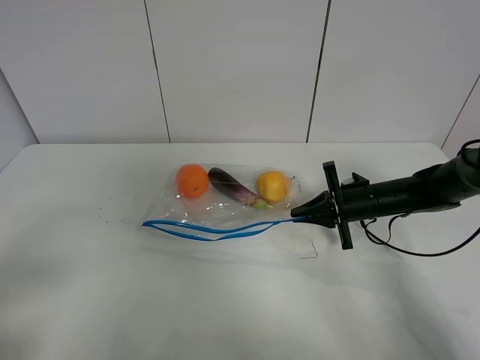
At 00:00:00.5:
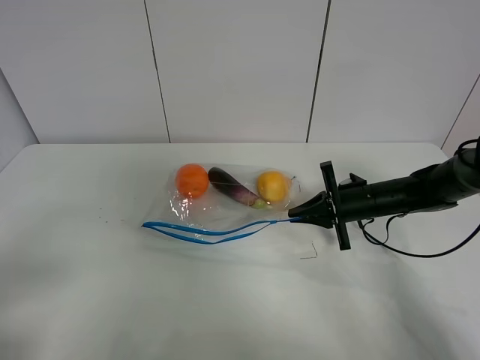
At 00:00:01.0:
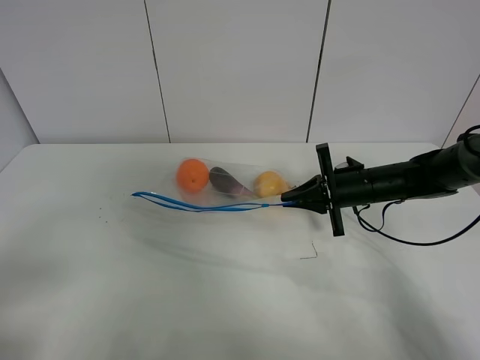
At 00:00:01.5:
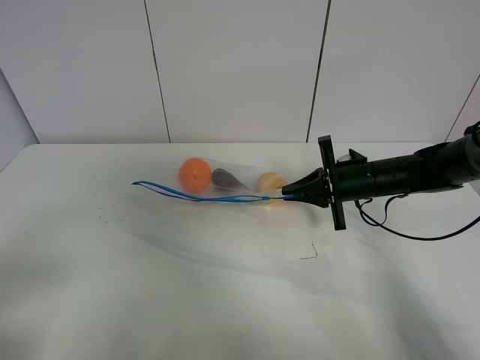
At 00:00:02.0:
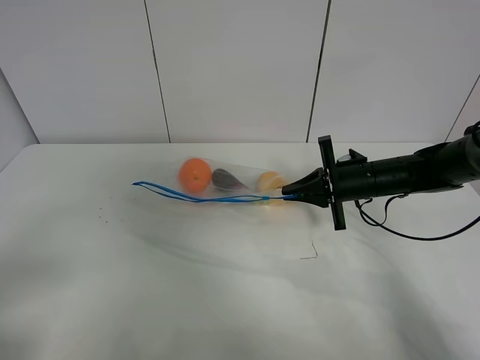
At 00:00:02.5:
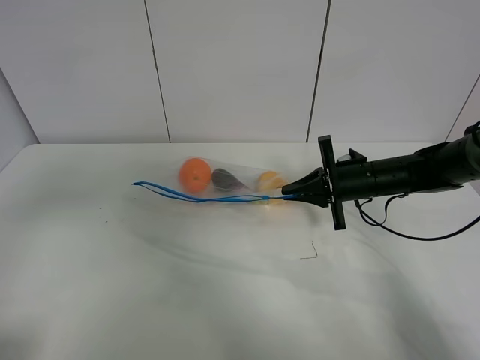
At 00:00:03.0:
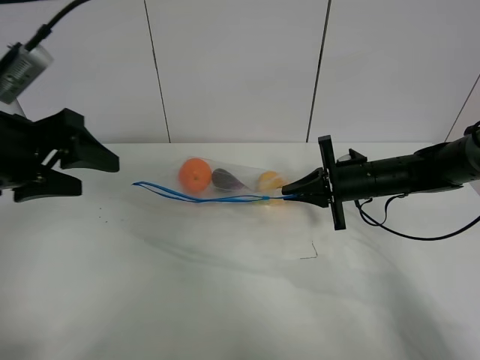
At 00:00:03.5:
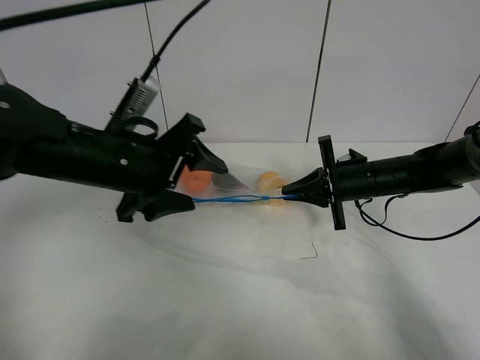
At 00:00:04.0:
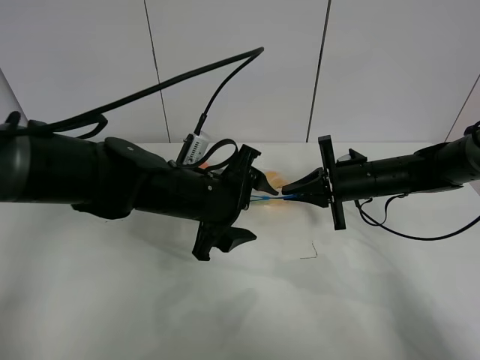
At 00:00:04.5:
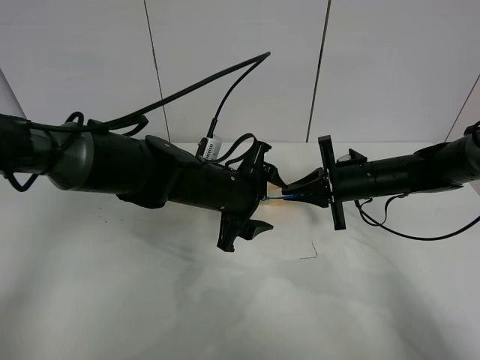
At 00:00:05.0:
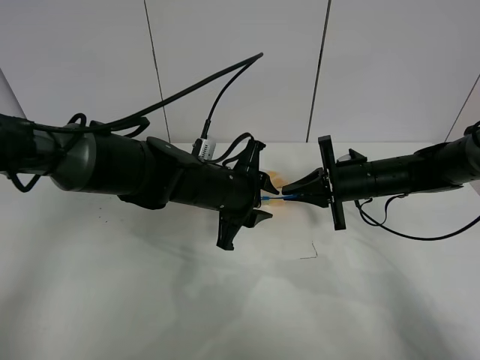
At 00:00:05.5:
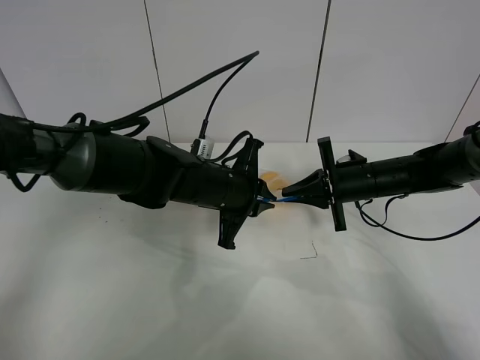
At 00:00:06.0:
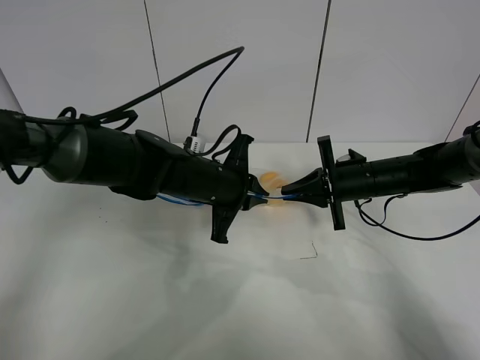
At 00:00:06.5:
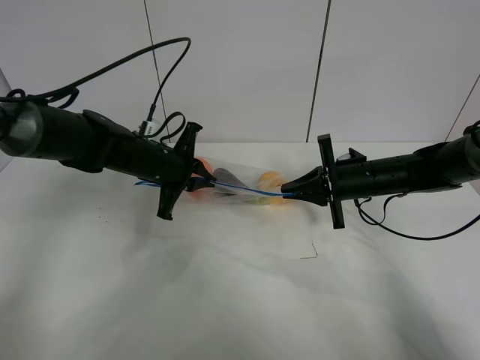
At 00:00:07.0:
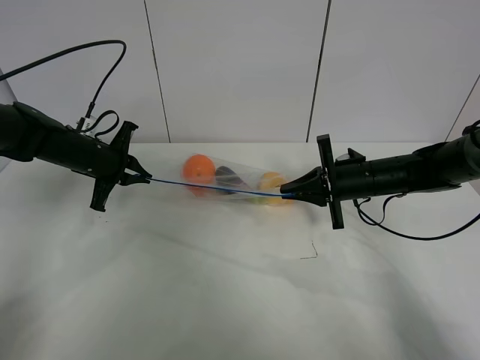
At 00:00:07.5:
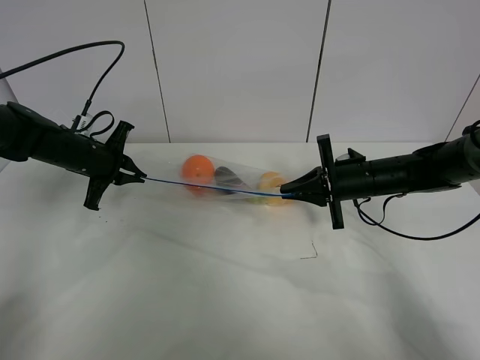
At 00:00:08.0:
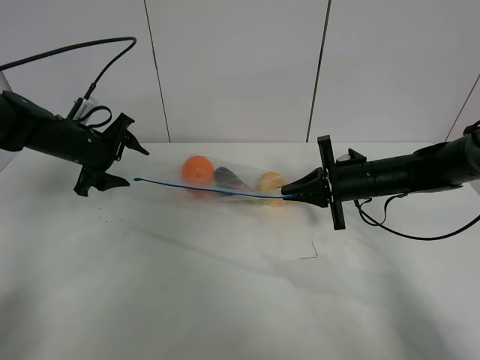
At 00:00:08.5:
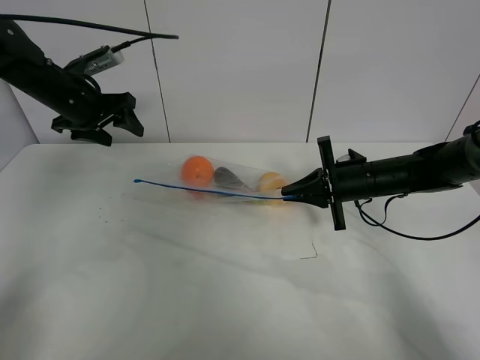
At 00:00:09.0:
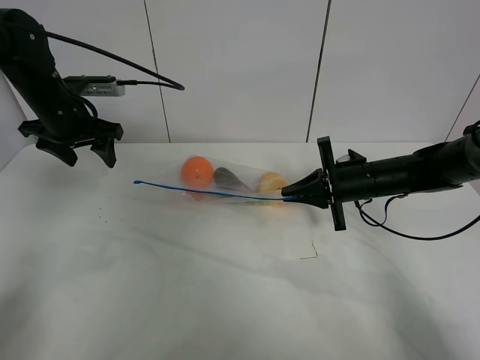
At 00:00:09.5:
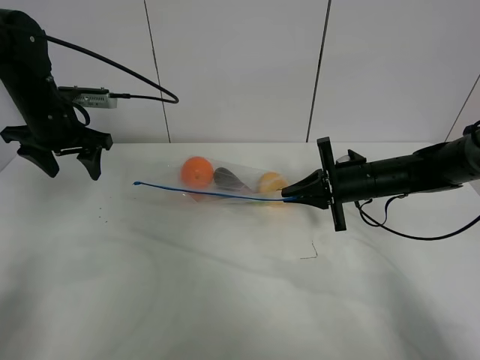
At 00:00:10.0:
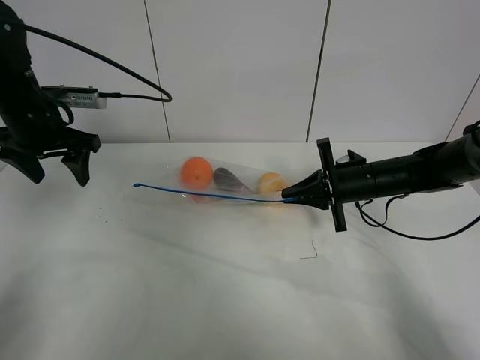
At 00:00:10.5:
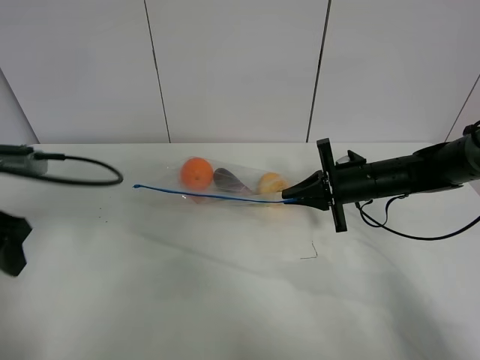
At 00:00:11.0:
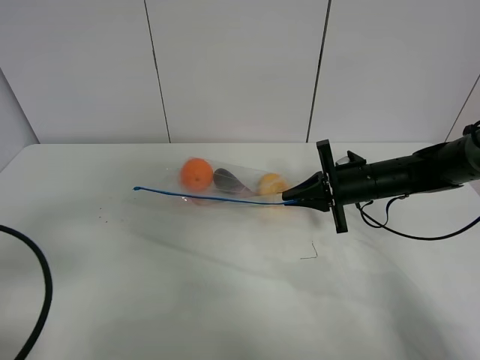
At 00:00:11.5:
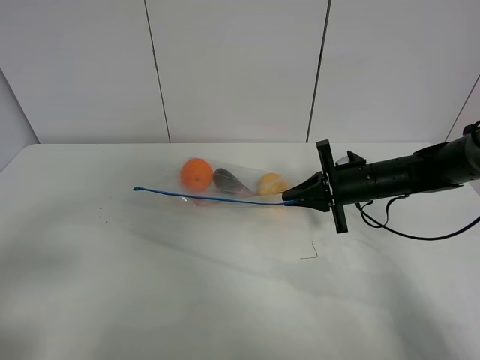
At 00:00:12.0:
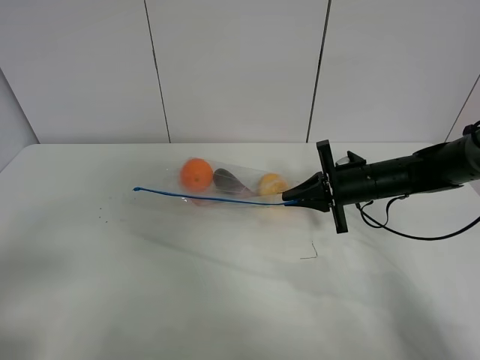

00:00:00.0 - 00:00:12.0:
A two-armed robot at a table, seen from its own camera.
Step, 00:00:00.0 - 00:00:01.5: Lift the fruit bag with your right gripper.
Step, 00:00:02.0 - 00:00:07.5: Pull the fruit bag with left gripper.
00:00:00.0 - 00:00:02.0: The right gripper changes place by about 5 cm.
00:00:02.0 - 00:00:04.0: The left gripper goes about 35 cm forward and to the right.
00:00:04.0 - 00:00:06.0: The left gripper changes place by roughly 5 cm, and closes.
00:00:06.0 - 00:00:08.0: The left gripper goes approximately 20 cm to the left, and opens up.
00:00:08.0 - 00:00:10.0: The left gripper heads upward, covering about 10 cm.
00:00:10.0 - 00:00:12.0: The left gripper heads backward, covering about 35 cm.

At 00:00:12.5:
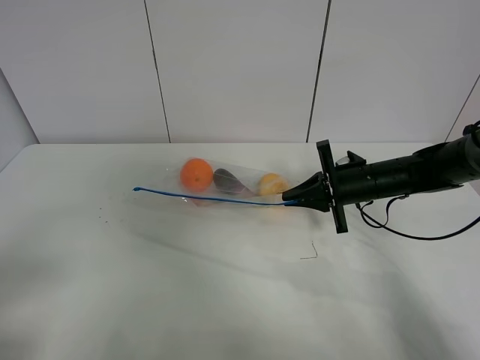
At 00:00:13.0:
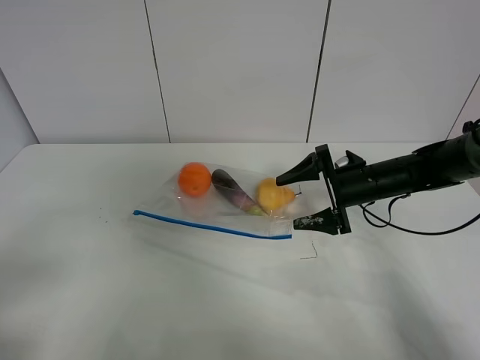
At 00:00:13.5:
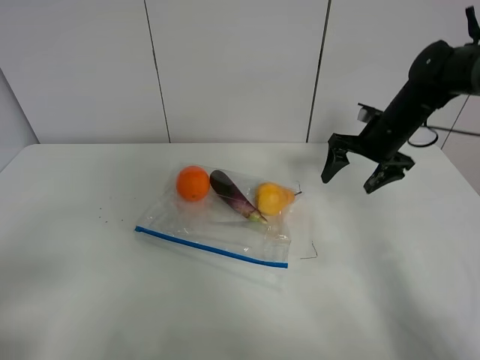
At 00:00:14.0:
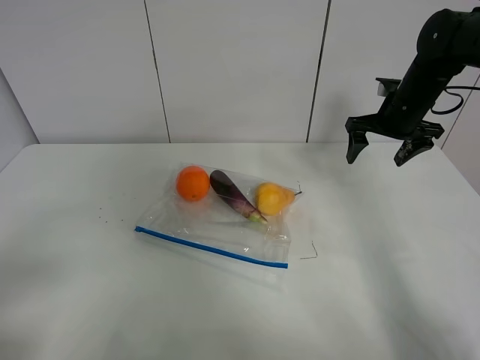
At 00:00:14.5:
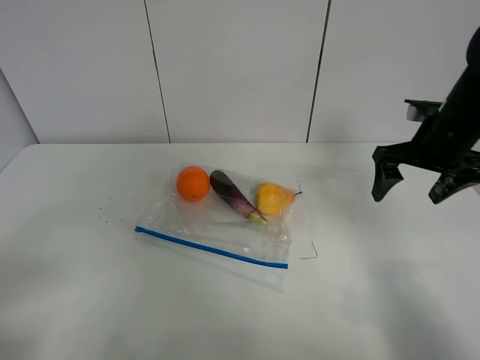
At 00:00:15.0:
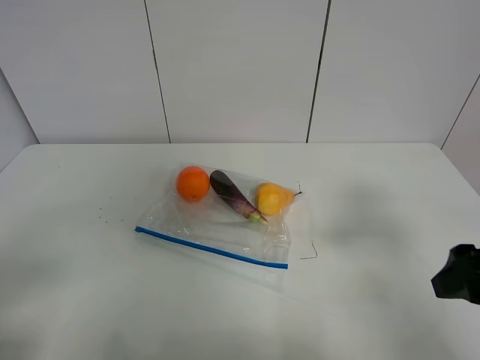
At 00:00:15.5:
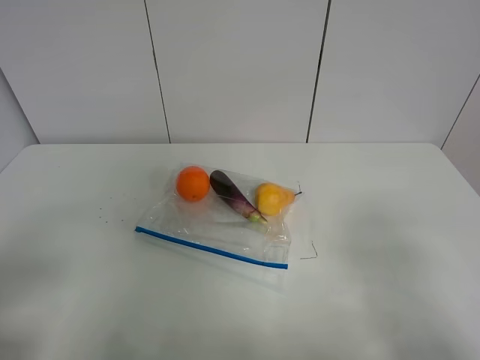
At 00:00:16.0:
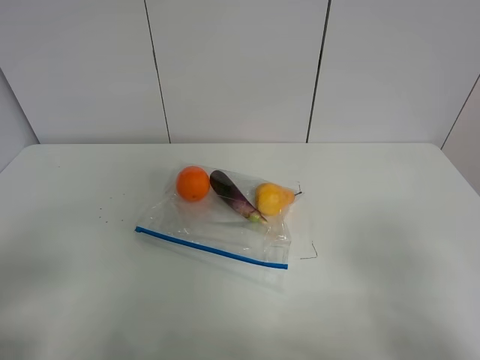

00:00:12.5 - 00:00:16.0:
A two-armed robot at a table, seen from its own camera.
00:00:12.5 - 00:00:14.5: The right gripper travels upward and to the right by about 15 cm, and opens up.
00:00:14.5 - 00:00:16.0: The right gripper is displaced backward by about 30 cm.
